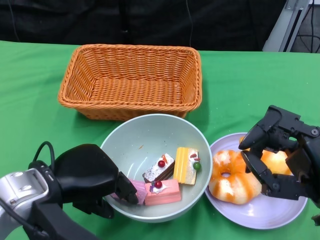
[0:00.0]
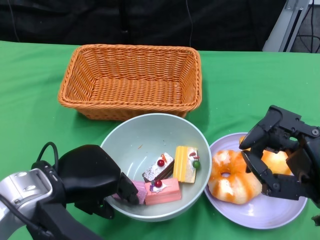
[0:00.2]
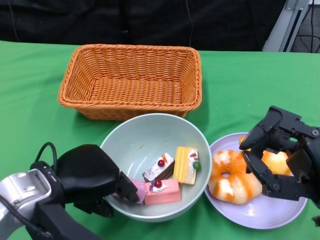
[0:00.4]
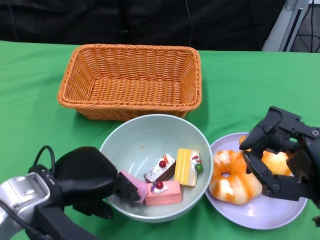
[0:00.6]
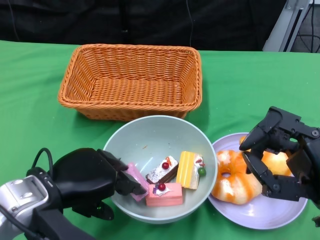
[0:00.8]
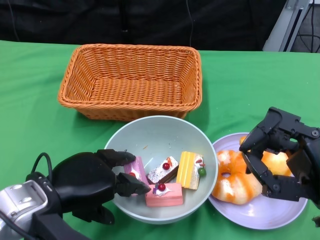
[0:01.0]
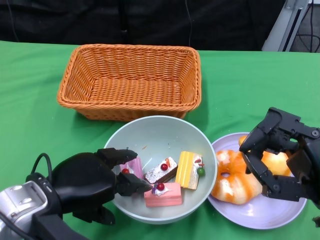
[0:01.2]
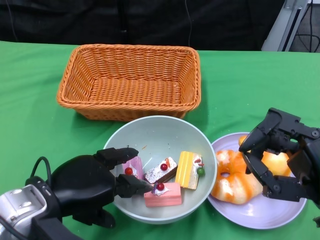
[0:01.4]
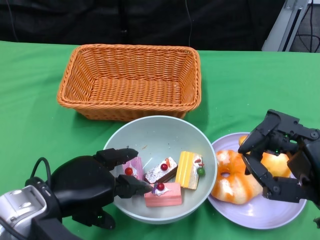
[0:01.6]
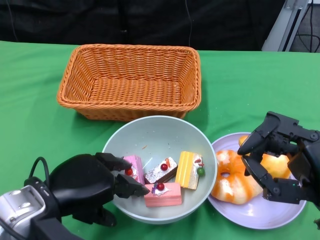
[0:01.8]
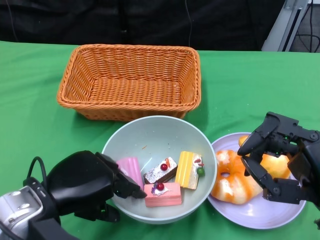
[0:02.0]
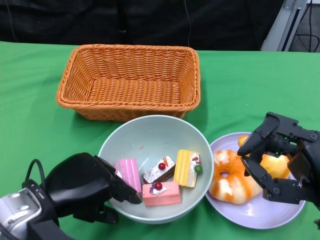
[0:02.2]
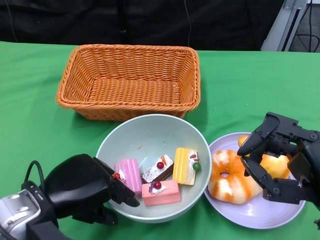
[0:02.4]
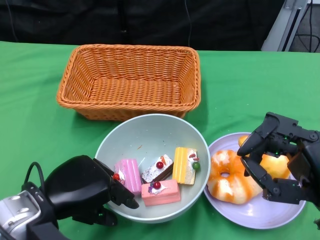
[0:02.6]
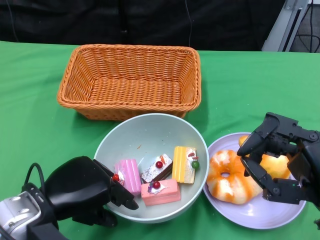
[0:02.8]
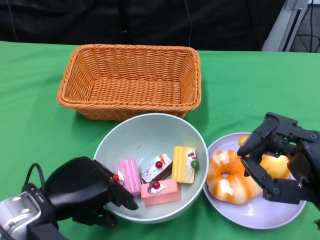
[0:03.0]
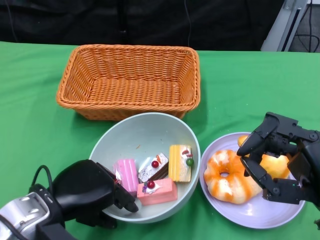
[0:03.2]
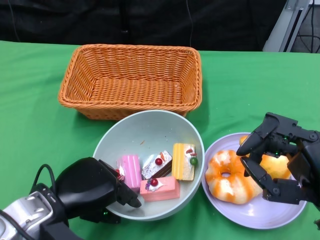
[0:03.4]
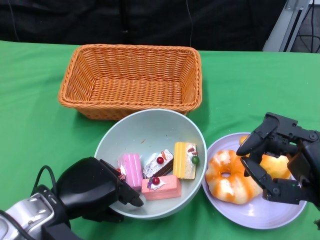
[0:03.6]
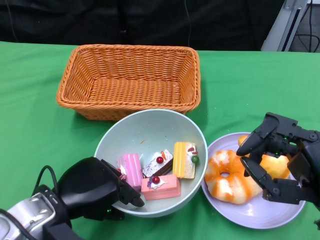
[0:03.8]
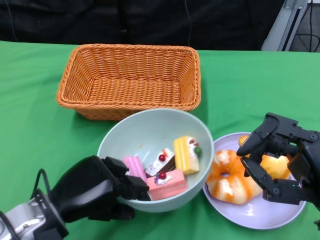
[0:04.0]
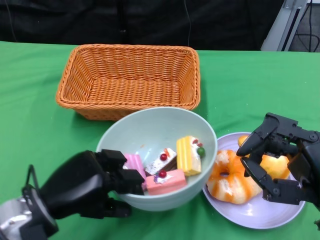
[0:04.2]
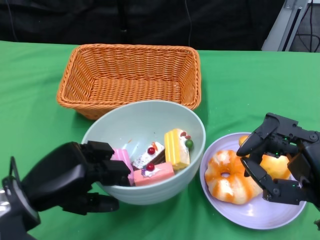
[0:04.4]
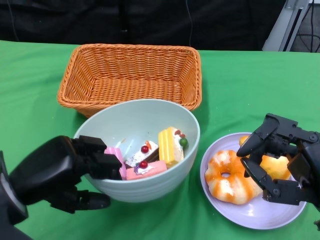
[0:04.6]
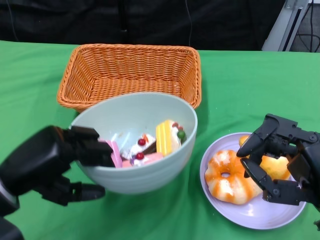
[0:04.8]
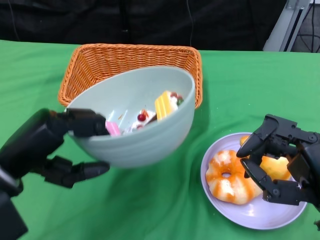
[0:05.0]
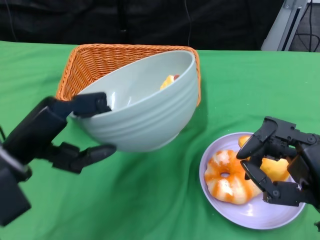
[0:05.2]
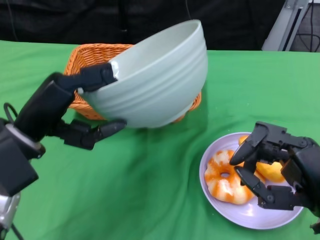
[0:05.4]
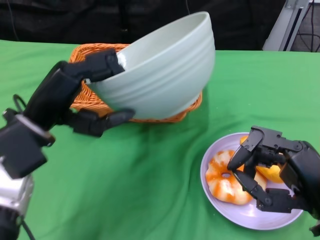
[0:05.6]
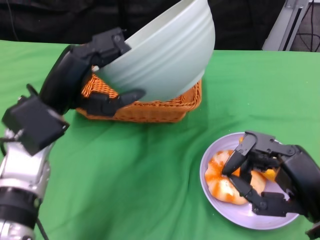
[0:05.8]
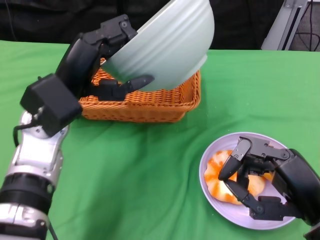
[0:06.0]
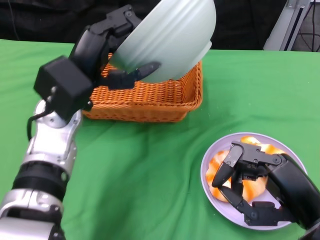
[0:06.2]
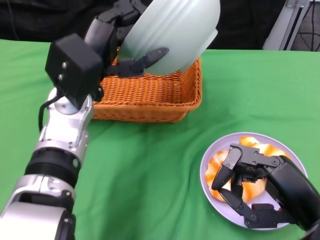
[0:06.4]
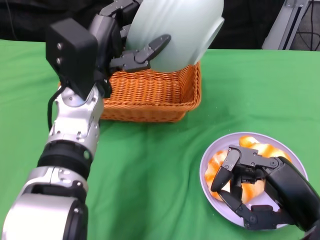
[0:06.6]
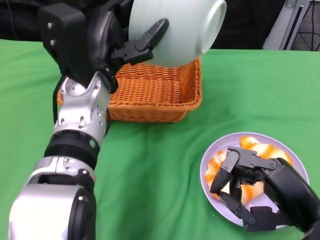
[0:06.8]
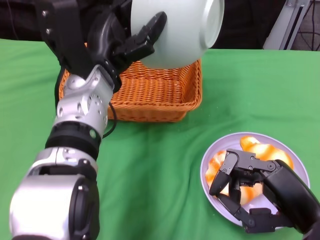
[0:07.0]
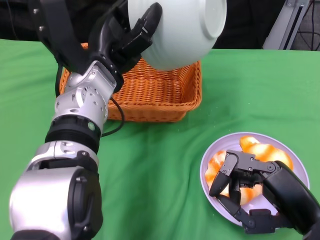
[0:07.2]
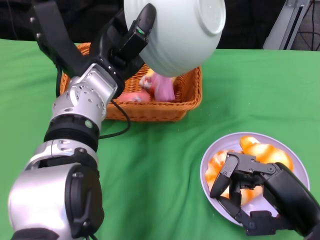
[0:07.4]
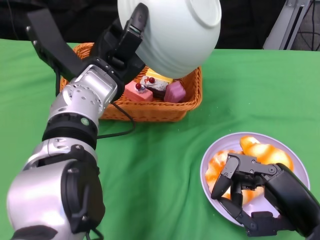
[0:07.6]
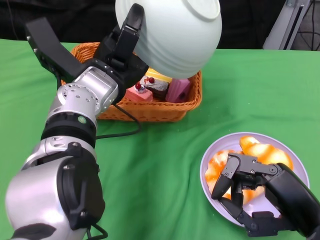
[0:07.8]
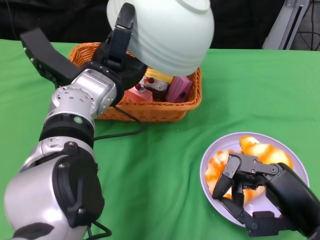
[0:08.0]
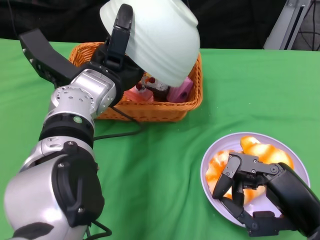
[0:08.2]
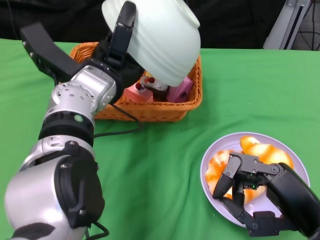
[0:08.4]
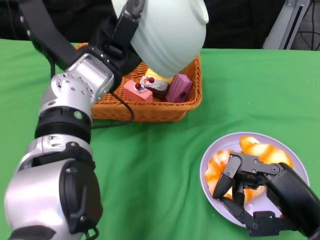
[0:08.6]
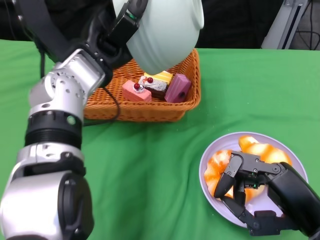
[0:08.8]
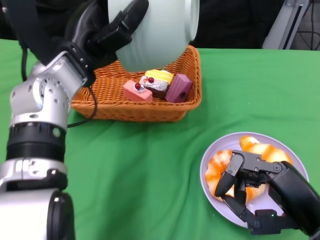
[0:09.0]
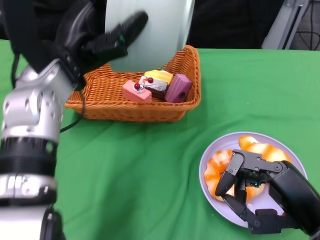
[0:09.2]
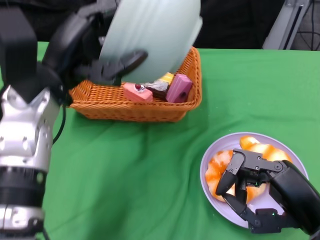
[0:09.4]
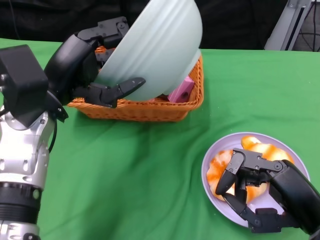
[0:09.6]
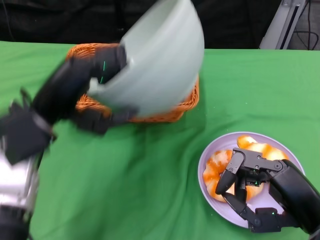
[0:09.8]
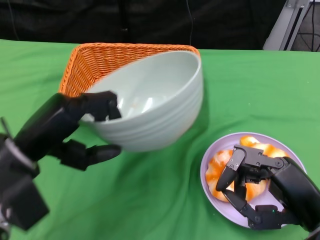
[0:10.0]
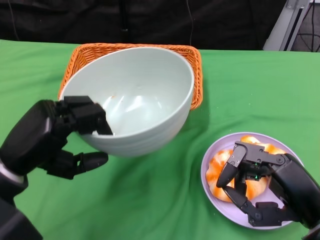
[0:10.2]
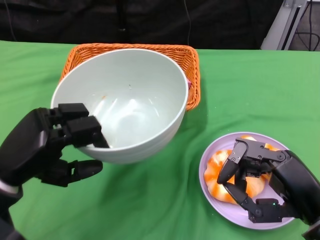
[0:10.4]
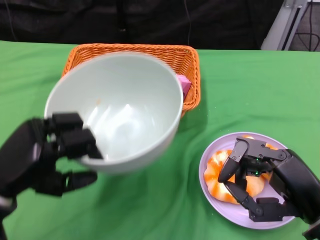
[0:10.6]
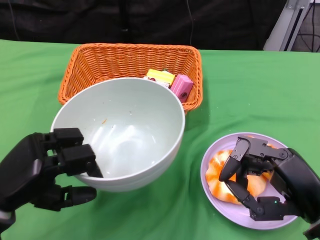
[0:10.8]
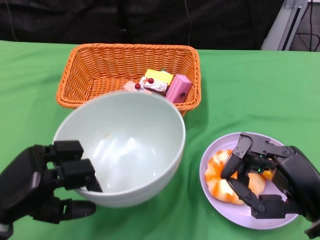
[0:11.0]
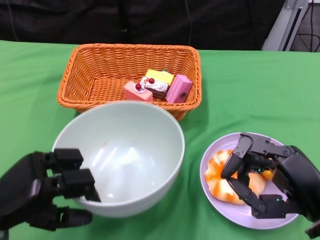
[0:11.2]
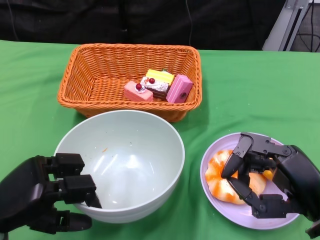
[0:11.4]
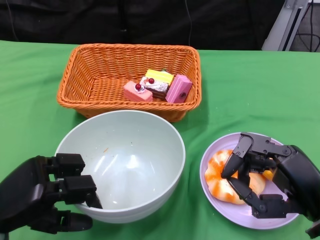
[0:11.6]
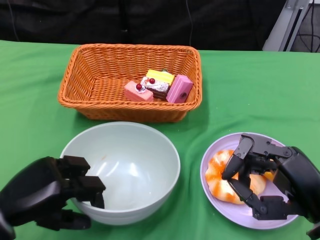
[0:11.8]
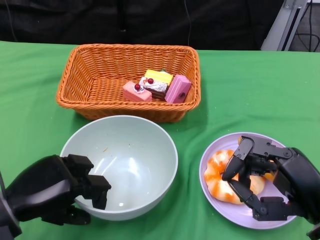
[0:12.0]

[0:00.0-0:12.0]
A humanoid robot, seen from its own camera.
Step, 0:00.0 to 0:04.2: Grasp the bowl with the left gripper.
Step, 0:04.4 to 0:07.6: Pour the cake into the basket with the left gripper.
0:00.0 to 0:03.0: The hands move only a little.
0:04.4 to 0:06.0: The left hand moves forward, upward and to the right, approximately 10 cm.
0:06.0 to 0:07.6: The left hand moves to the right, roughly 5 cm.
0:07.6 to 0:09.0: The left hand ends up about 5 cm from where it was.
0:09.0 to 0:10.4: The left hand is displaced backward, to the left and downward by approximately 15 cm.

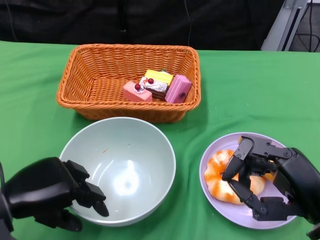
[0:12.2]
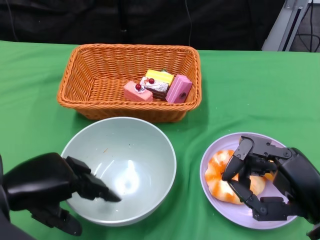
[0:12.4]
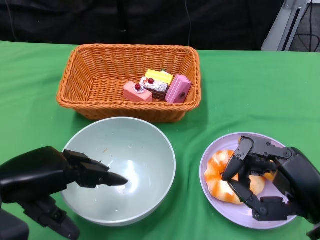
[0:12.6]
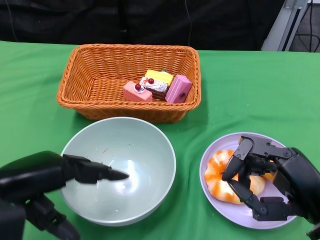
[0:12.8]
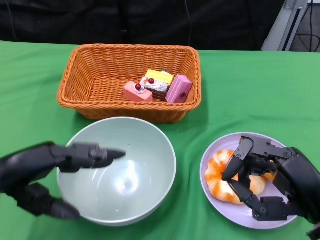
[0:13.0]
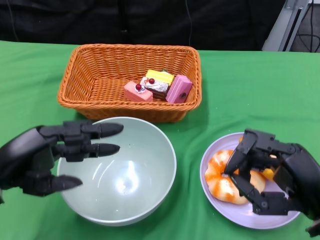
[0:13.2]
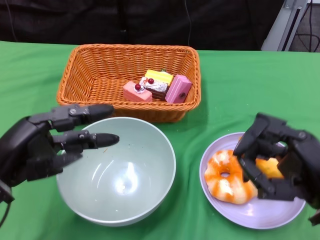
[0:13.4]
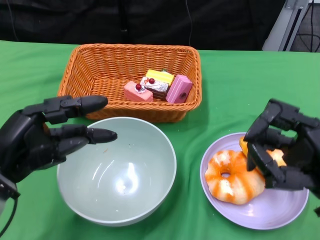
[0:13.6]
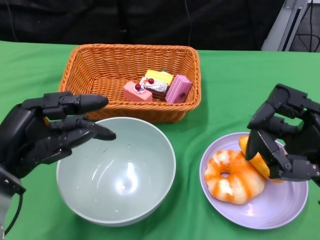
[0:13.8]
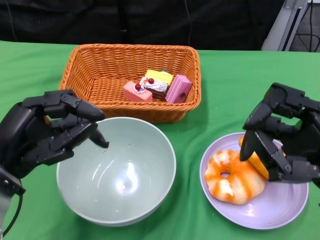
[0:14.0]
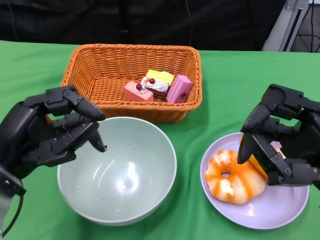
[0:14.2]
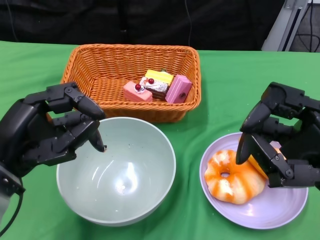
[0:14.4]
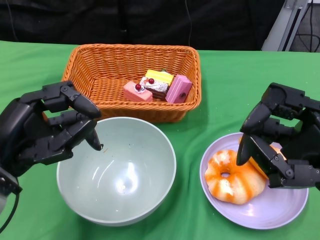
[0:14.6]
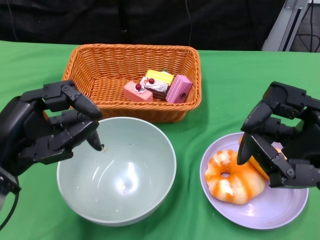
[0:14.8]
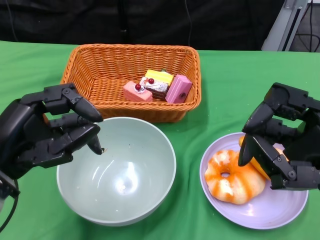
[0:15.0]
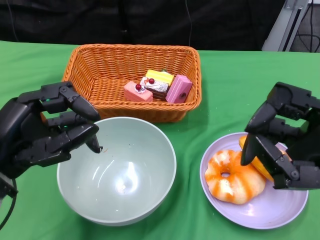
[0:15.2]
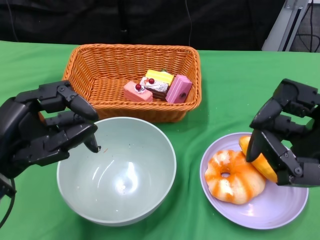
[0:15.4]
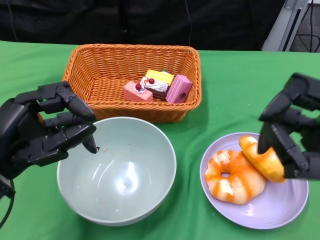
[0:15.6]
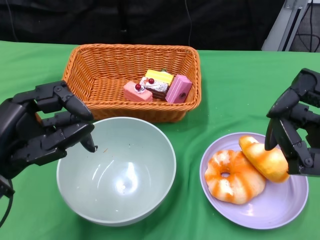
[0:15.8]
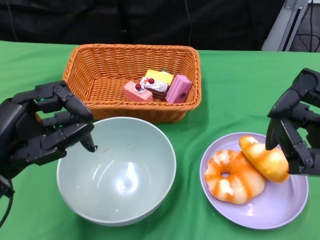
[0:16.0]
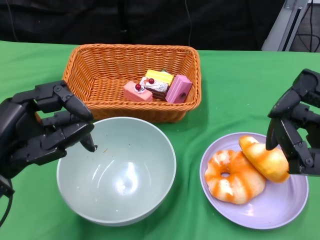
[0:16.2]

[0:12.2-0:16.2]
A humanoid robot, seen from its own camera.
0:13.6 to 0:14.8: The right hand moves about 5 cm.
0:14.8 to 0:16.2: The hands stay close to where they were, moving slightly.

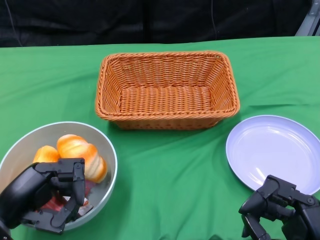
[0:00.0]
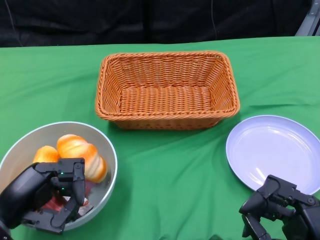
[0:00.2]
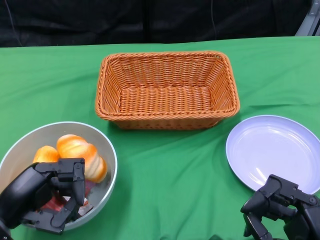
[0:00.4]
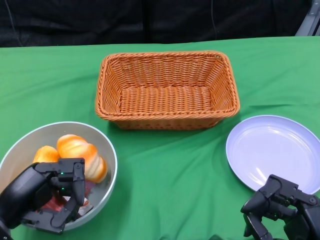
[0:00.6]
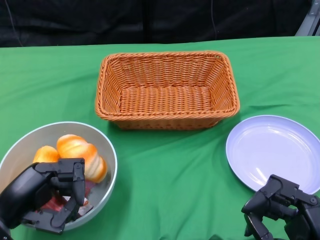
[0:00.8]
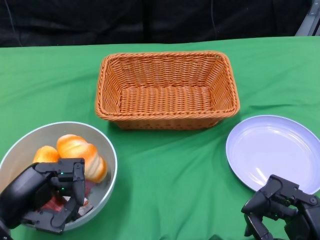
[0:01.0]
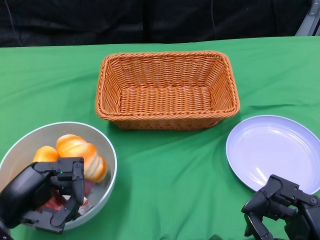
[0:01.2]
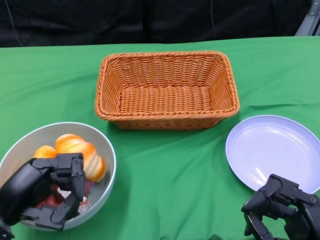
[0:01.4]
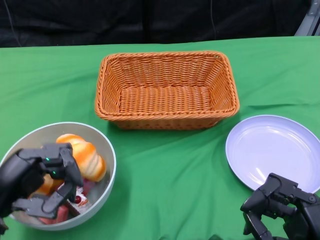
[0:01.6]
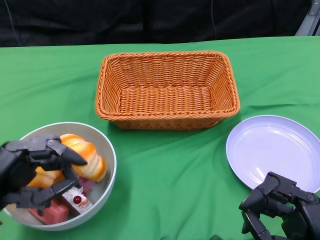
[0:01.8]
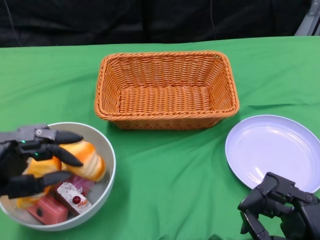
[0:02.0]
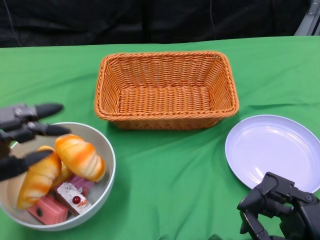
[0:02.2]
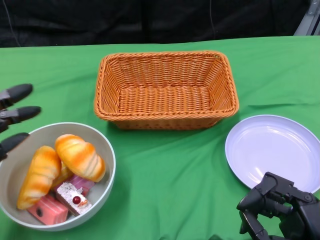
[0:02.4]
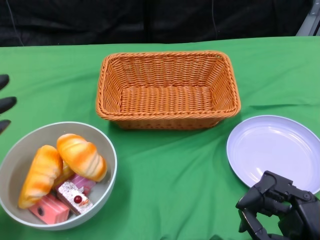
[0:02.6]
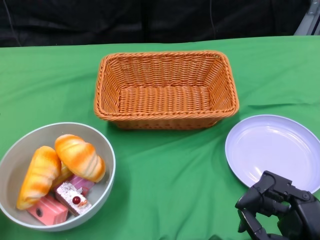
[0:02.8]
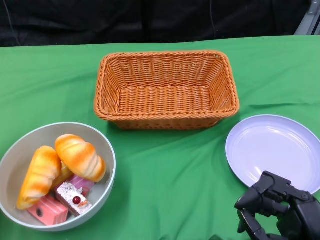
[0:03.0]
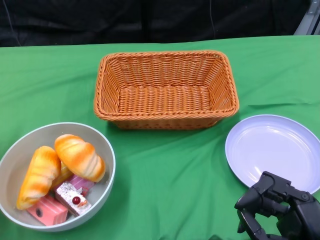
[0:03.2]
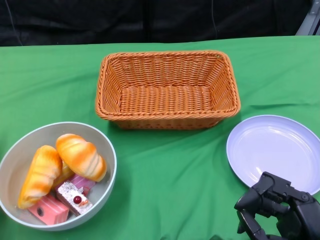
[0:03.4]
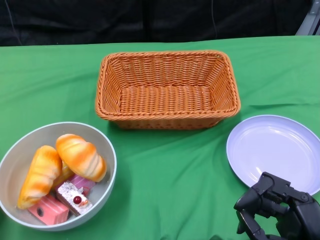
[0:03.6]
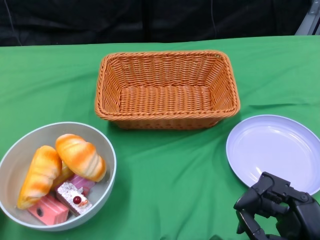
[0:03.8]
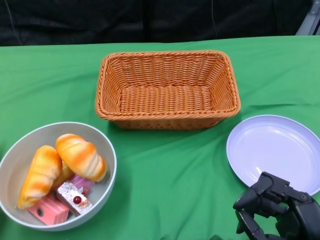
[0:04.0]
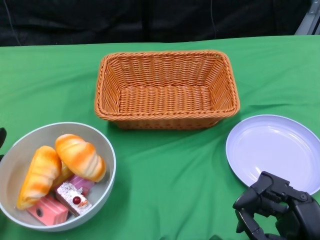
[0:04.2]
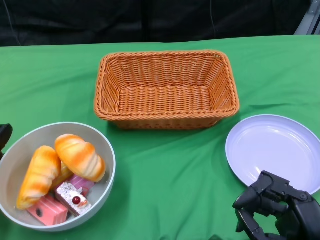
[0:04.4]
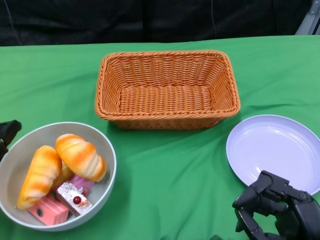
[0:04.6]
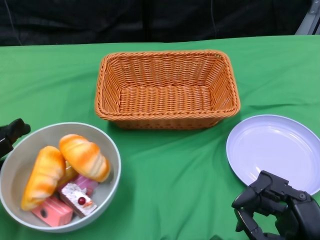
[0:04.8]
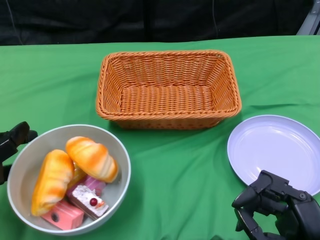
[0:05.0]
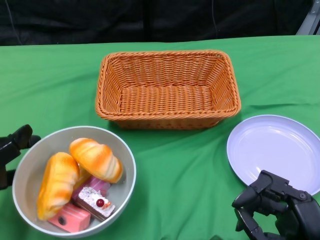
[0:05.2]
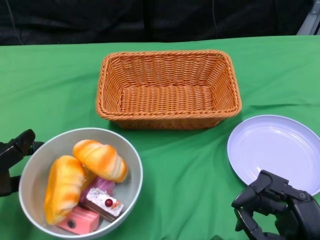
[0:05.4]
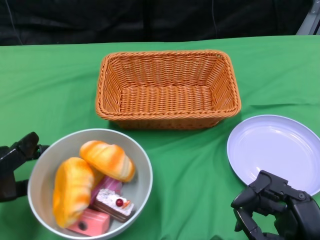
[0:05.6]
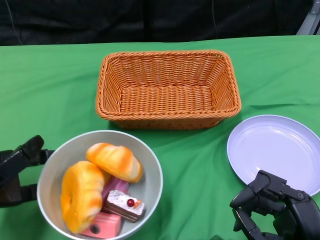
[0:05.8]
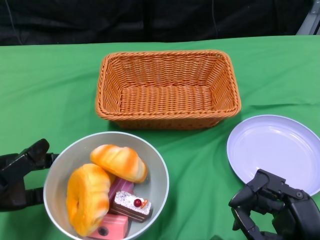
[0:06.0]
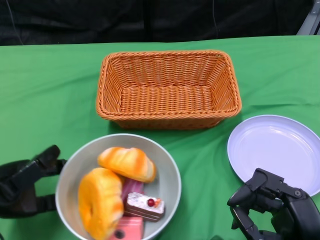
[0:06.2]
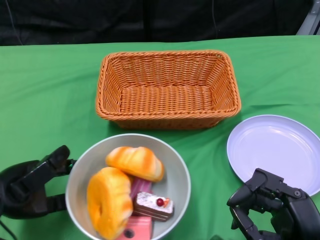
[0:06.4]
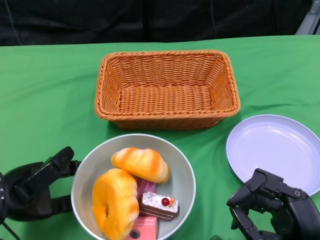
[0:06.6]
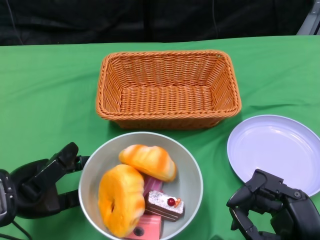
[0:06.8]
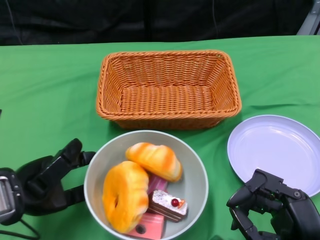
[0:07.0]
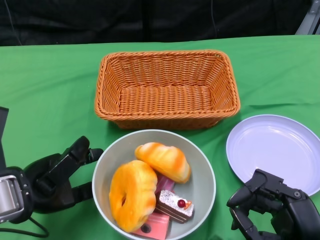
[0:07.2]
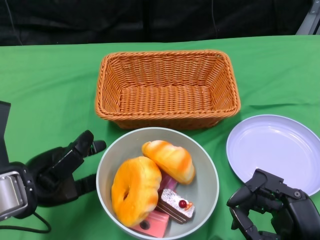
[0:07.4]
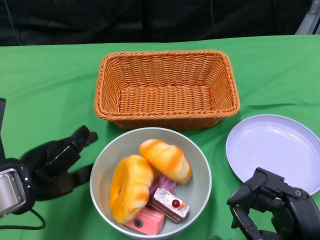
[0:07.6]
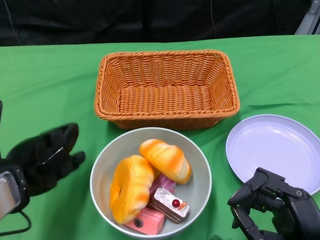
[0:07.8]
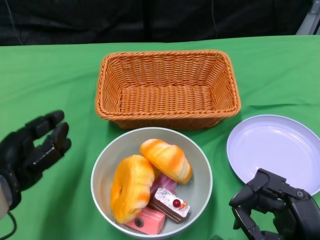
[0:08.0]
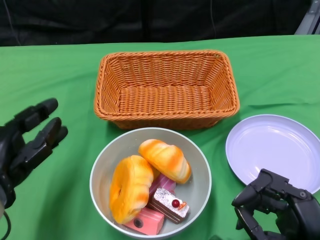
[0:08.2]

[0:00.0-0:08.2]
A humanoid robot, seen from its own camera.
Step, 0:00.0 to 0:07.6: Push the bowl to the center of the table using the left gripper.
0:01.6 to 0:03.2: The left hand goes roughly 10 cm to the left and forward.
0:05.0 to 0:06.6: The left hand heads to the right, covering approximately 5 cm.
